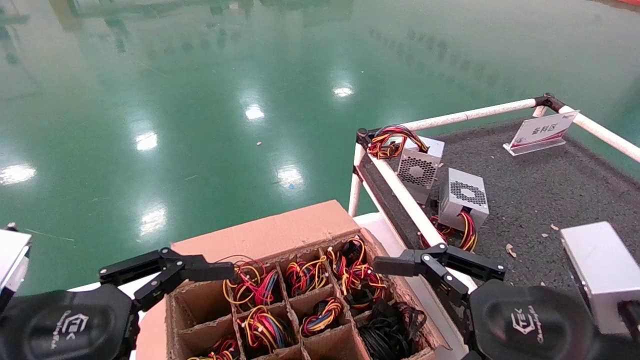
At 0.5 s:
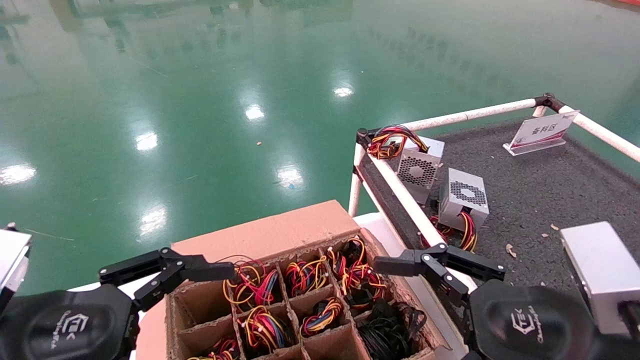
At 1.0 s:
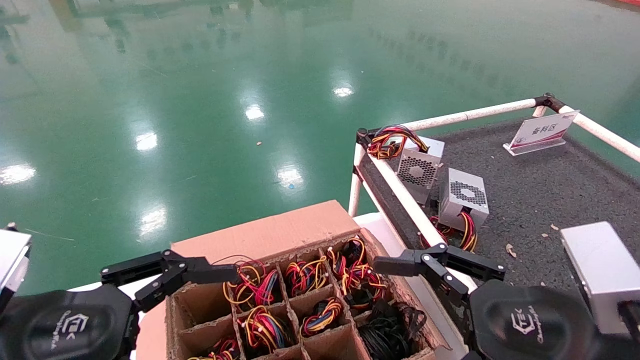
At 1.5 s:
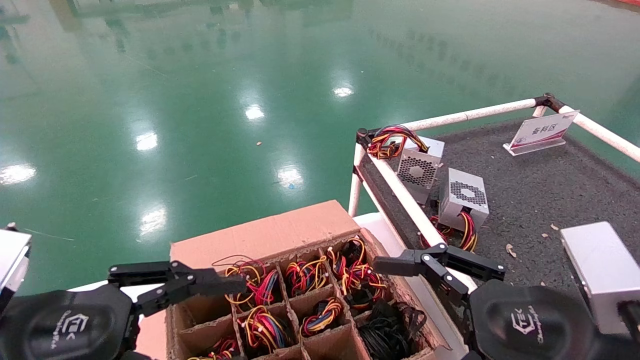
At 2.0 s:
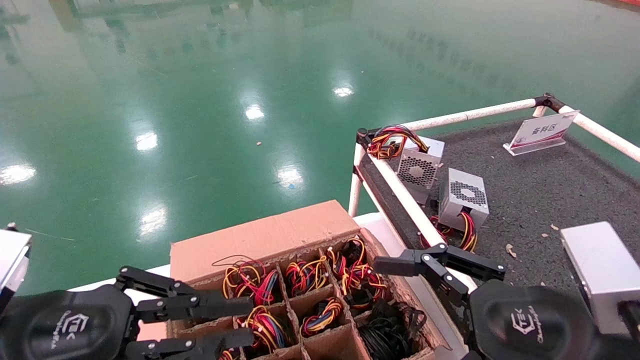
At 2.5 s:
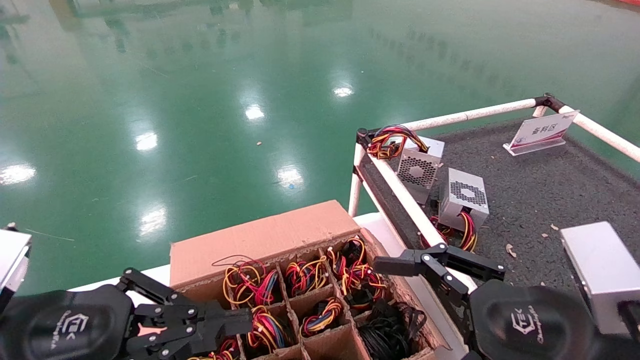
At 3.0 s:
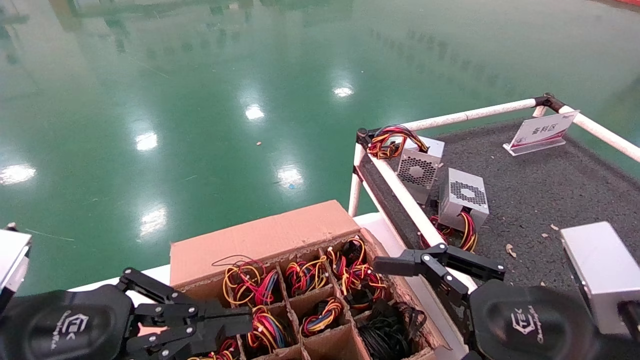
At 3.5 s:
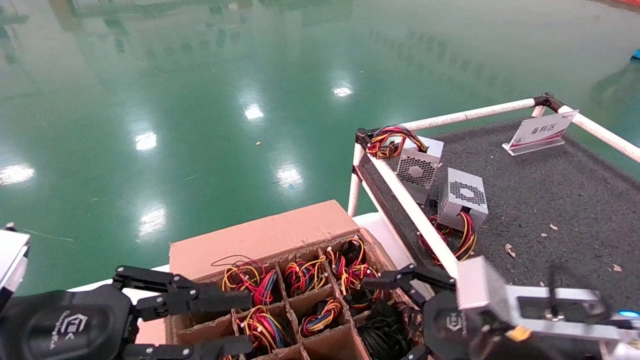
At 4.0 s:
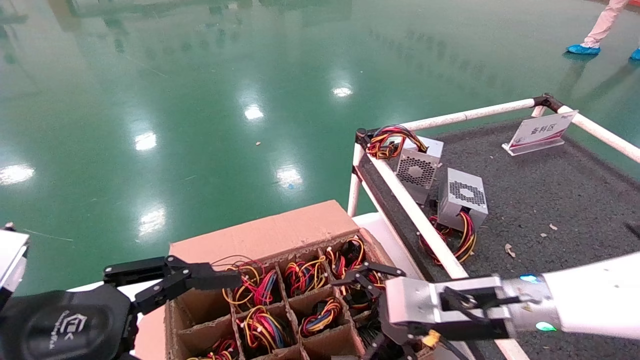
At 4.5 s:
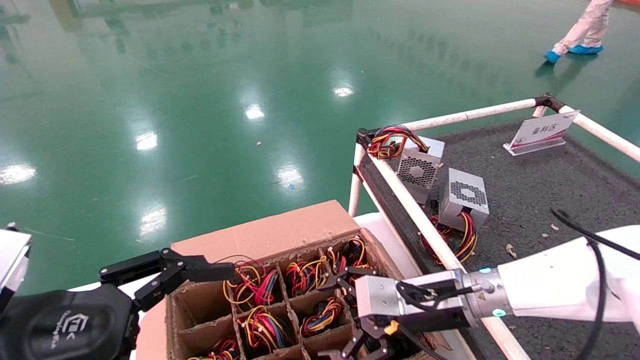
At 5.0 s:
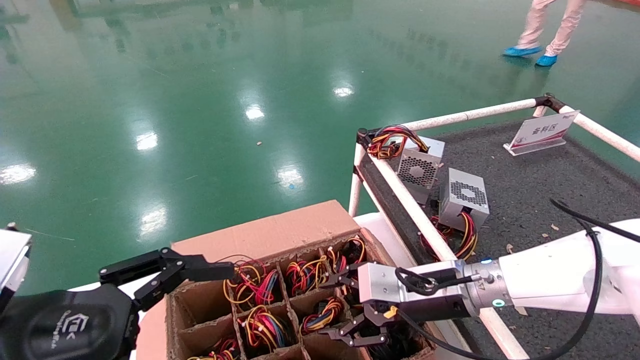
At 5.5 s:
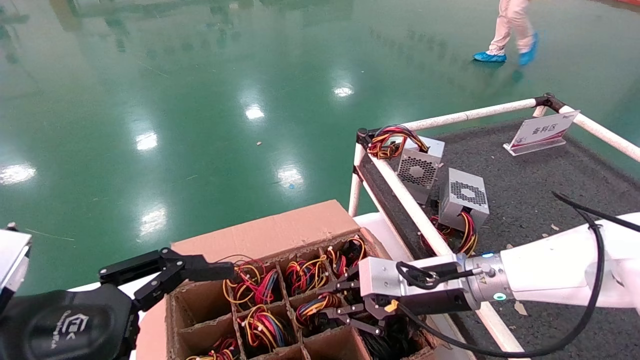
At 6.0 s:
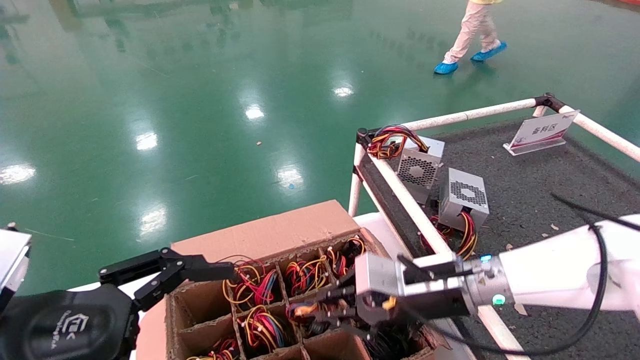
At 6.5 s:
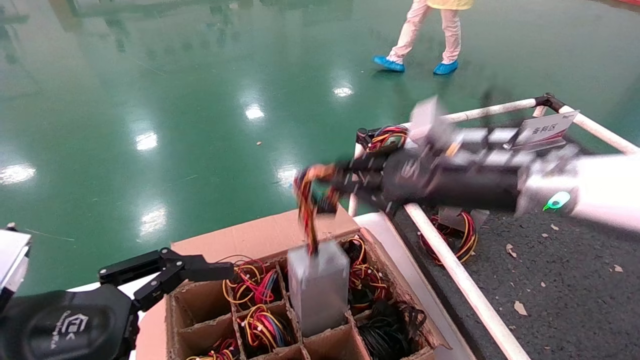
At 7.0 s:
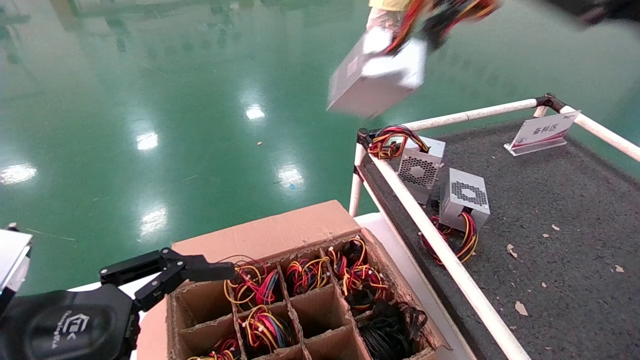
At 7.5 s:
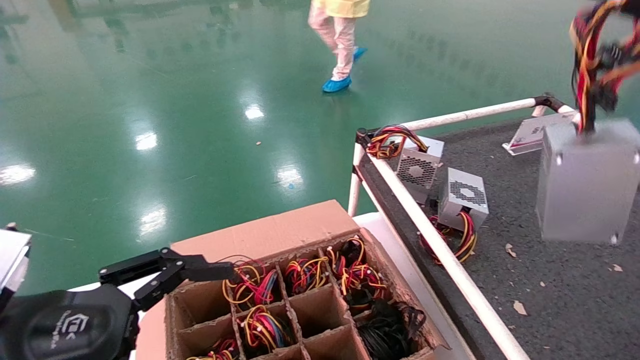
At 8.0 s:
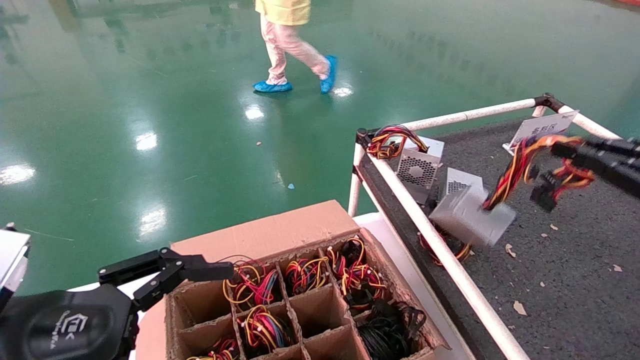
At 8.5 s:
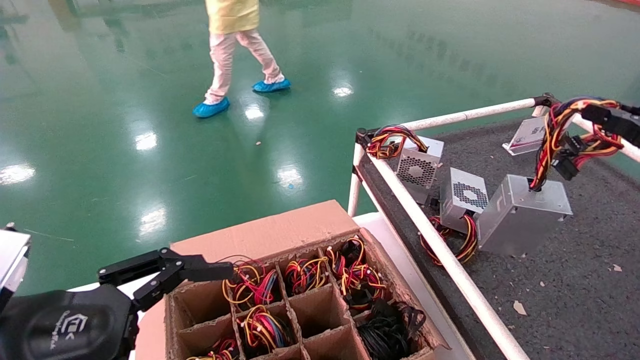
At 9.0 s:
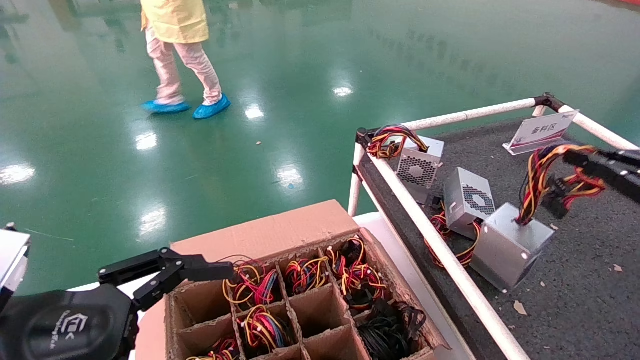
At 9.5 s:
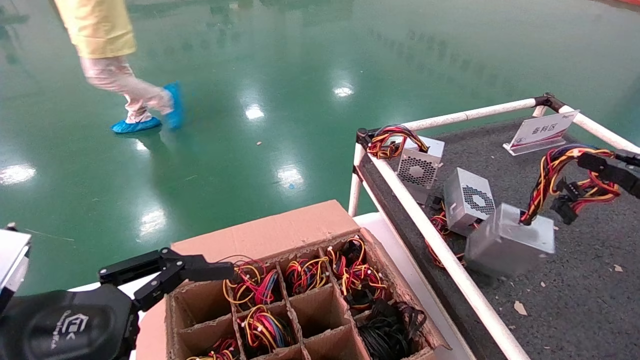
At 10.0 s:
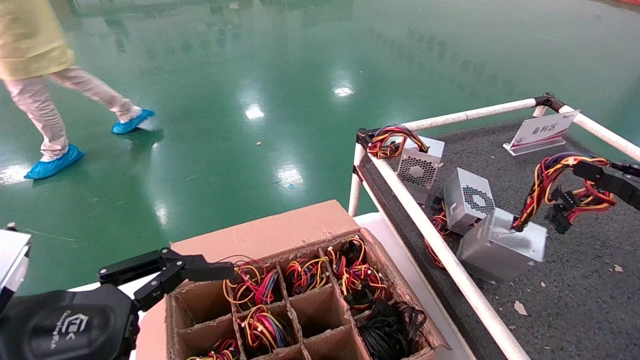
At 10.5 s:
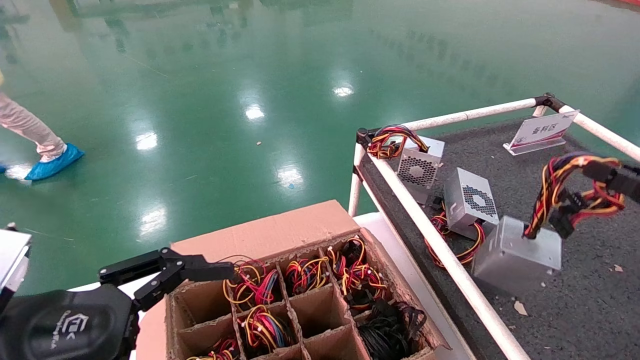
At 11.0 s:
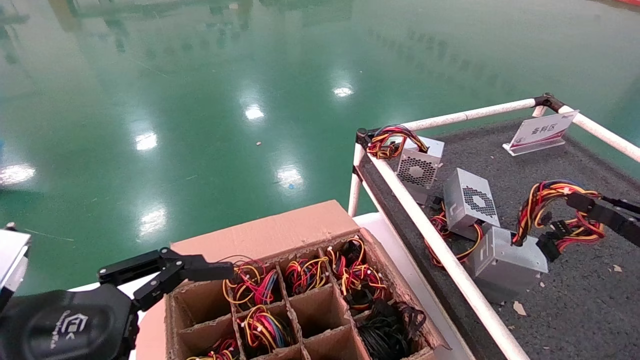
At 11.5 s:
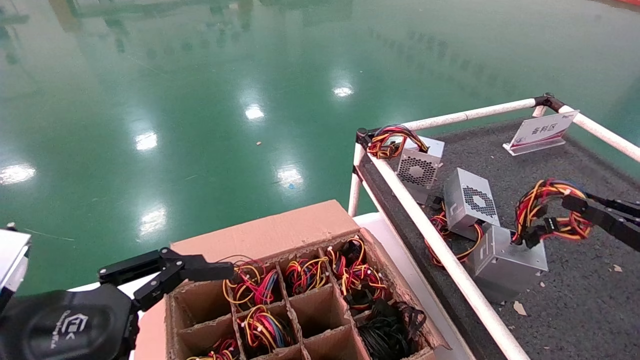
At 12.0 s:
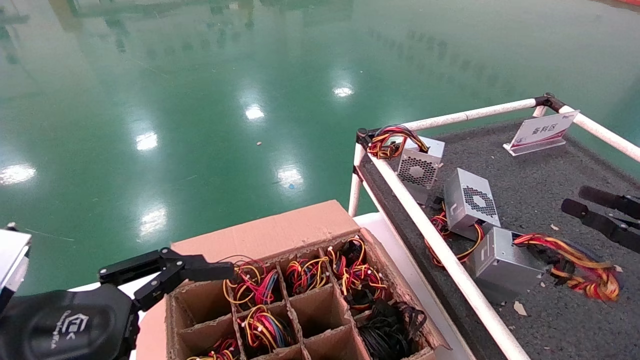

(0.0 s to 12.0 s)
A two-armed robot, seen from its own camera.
Step, 4.0 s - 5.5 s: Grab and lift the power supply from the large box.
0.0 s - 2.0 s: The left gripper closes its fingers.
2.0 s - 4.0 s: The right gripper shifts some 15 cm forward.
4.0 s - 6.0 s: The left gripper opens up. The right gripper moves about 5 cm, and closes its fingers.
6.0 s - 8.0 s: The right gripper goes approximately 35 cm to the right, backward and upward.
8.0 s - 10.0 s: The right gripper moves downward, approximately 5 cm.
10.0 s - 12.0 s: The grippers make only small movements.

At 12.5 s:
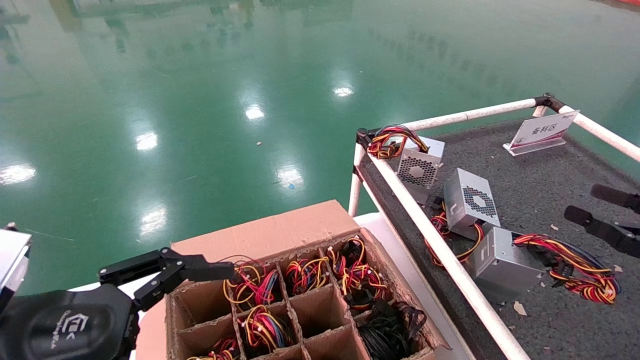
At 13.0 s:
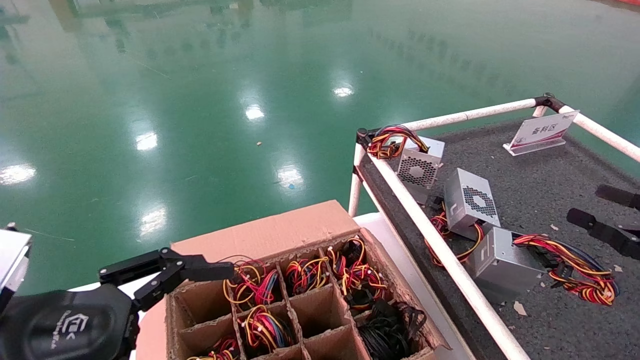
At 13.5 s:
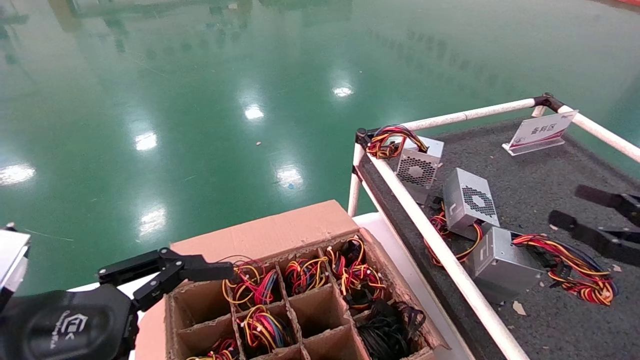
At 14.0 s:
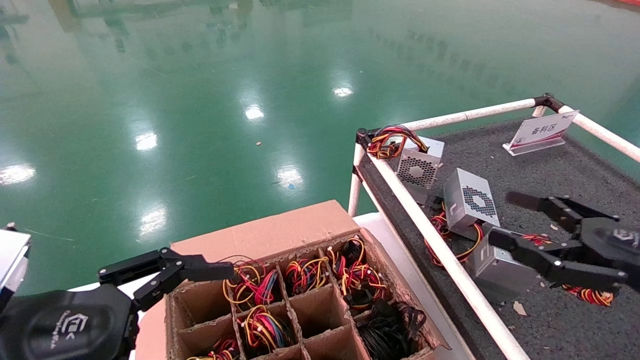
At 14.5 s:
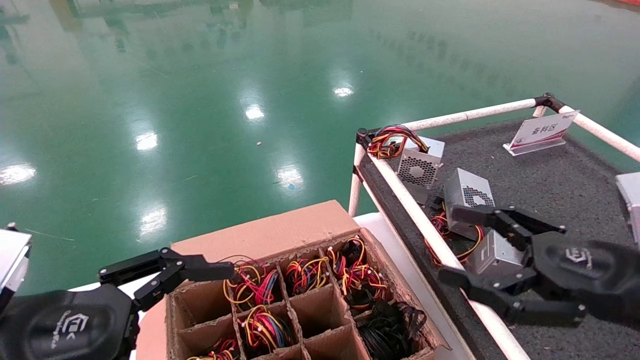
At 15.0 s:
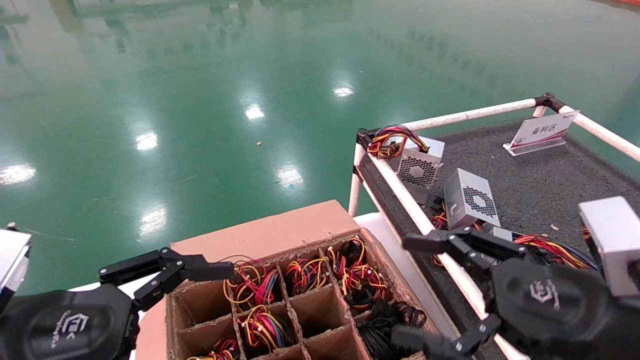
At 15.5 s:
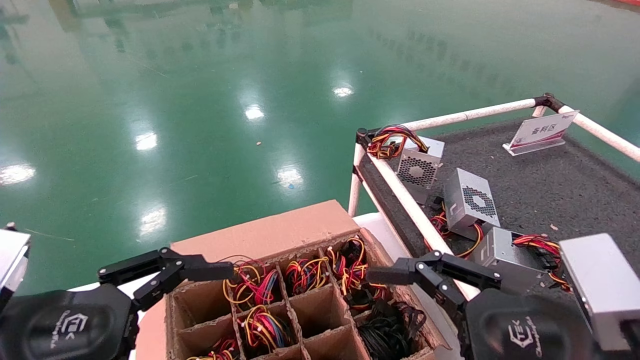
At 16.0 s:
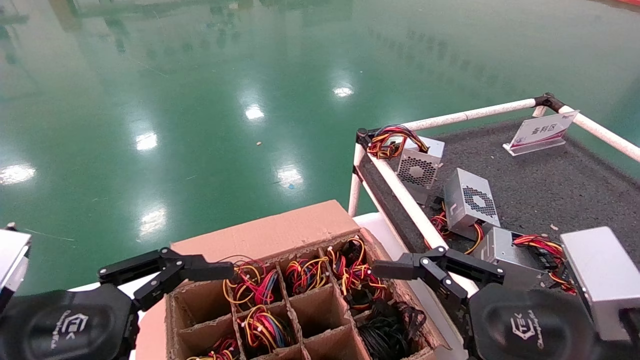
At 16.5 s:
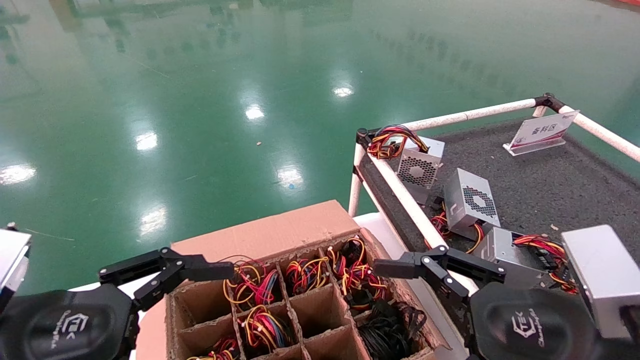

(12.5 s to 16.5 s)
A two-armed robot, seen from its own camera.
12.5 s - 14.5 s: The right gripper travels to the left by approximately 15 cm.
14.5 s - 16.5 s: The right gripper travels to the left by about 10 cm.
